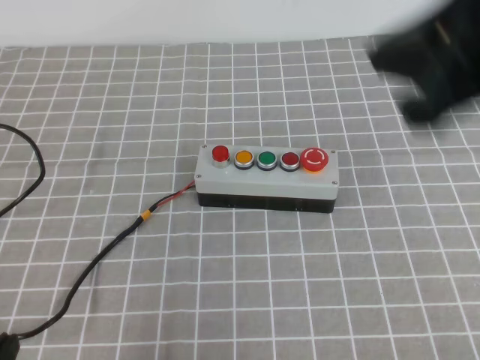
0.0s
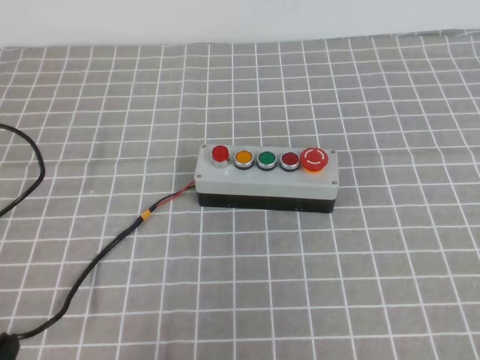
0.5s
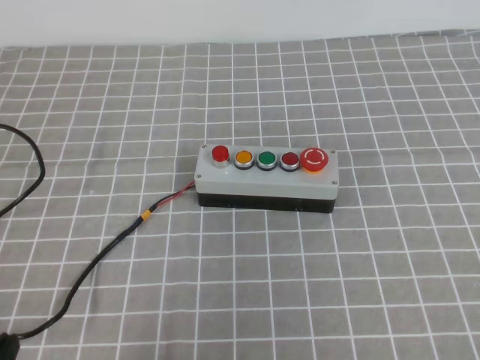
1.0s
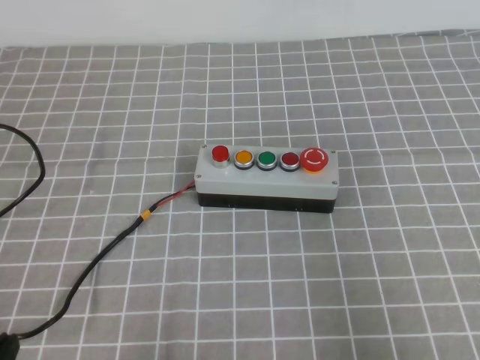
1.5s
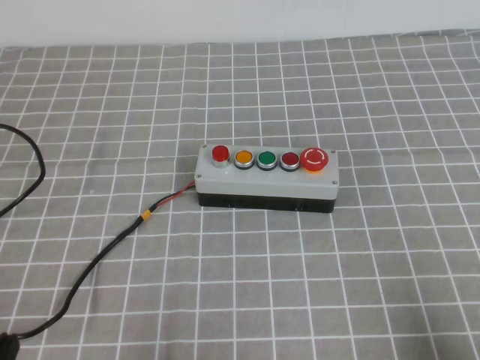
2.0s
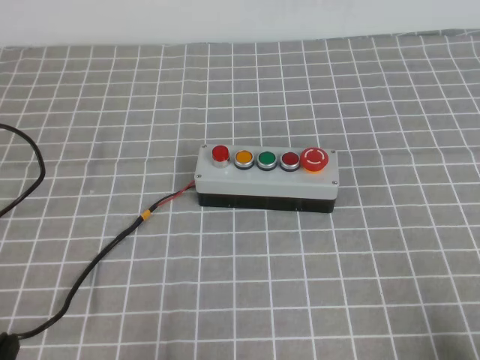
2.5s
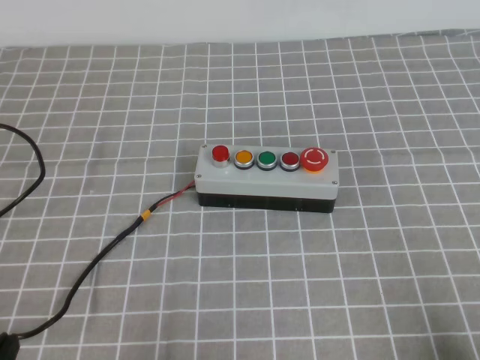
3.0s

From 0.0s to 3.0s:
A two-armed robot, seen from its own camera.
Task of the whole recording: press the button switch on the grey tablecloth with the right gripper to turn off the button.
Step, from 0.0s to 3.0s: Press the button to turn off.
From 0.0s to 1.5s: The right gripper moves backward, to the right and downward, some 25 cm.
From 1.5s to 3.0s: The right gripper travels downward by approximately 15 cm.
